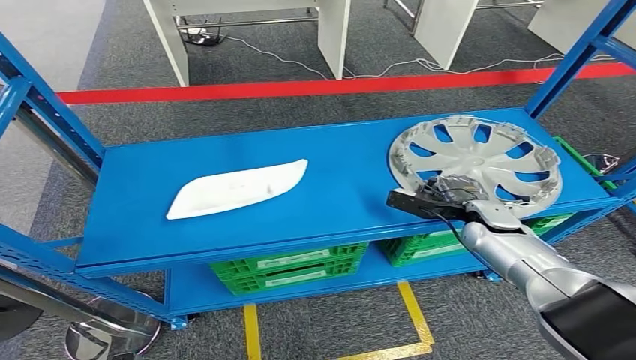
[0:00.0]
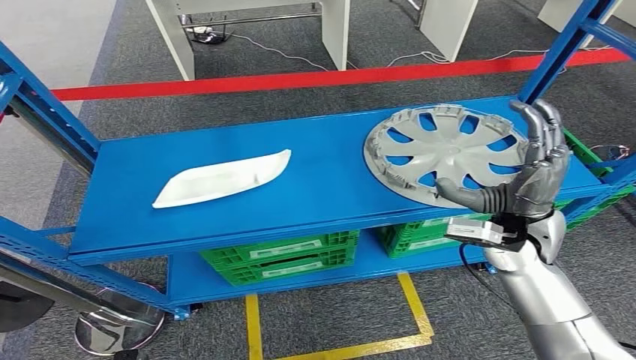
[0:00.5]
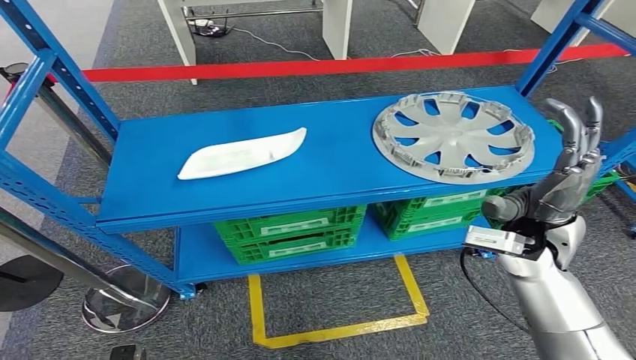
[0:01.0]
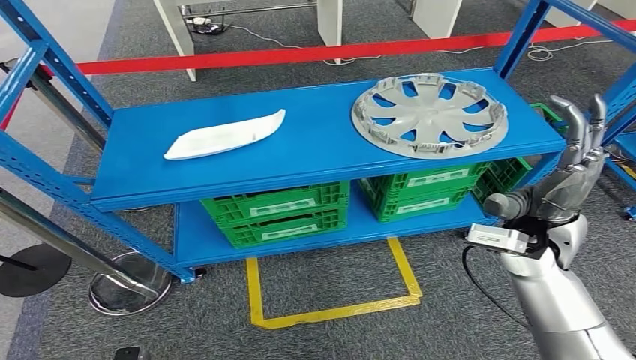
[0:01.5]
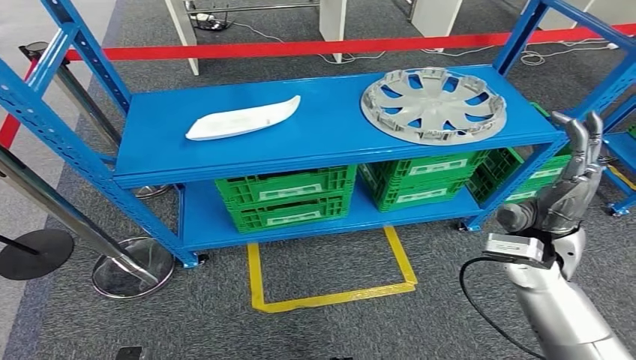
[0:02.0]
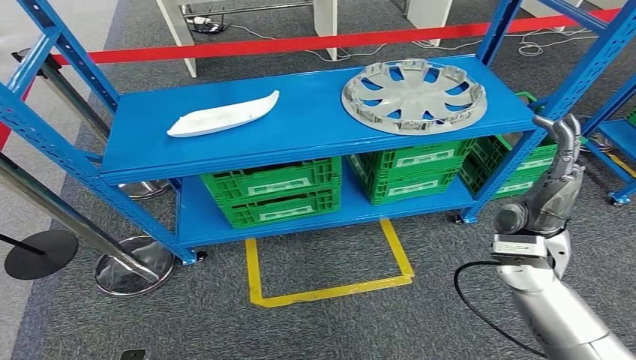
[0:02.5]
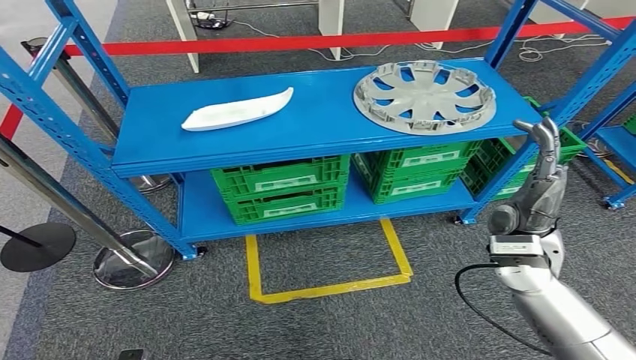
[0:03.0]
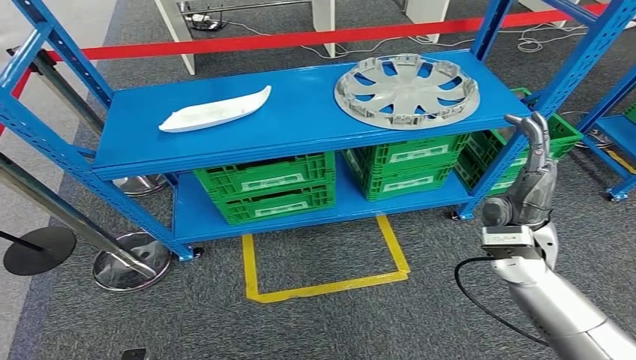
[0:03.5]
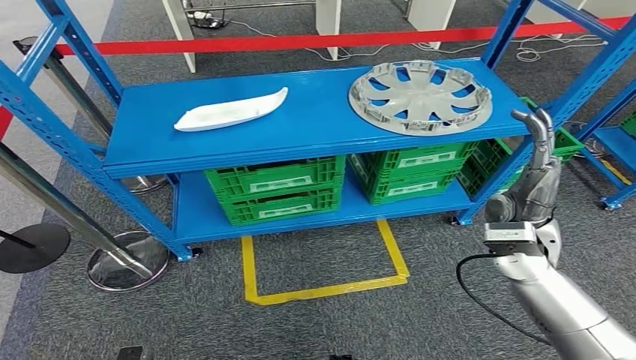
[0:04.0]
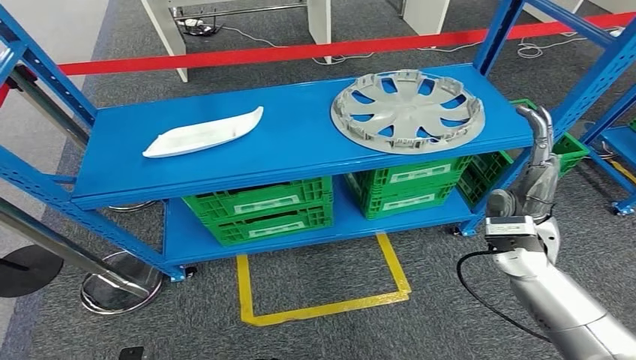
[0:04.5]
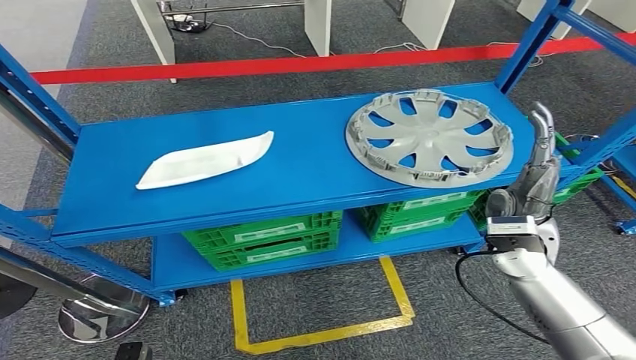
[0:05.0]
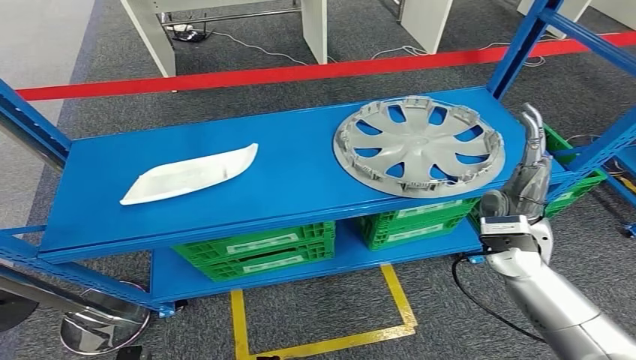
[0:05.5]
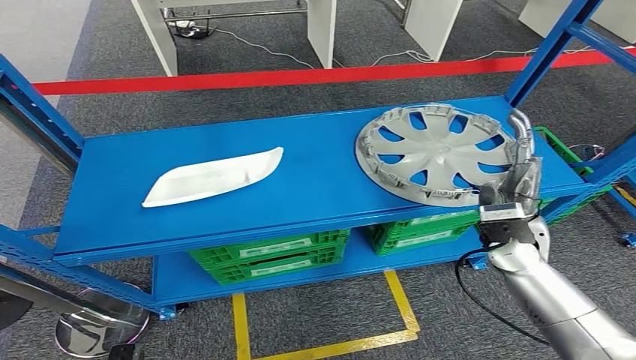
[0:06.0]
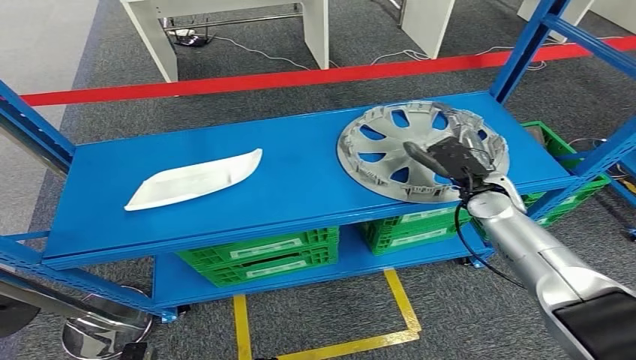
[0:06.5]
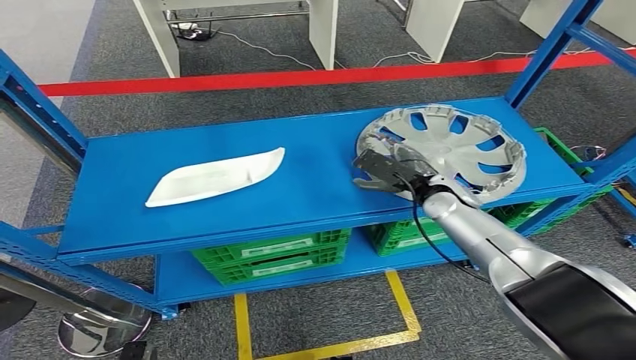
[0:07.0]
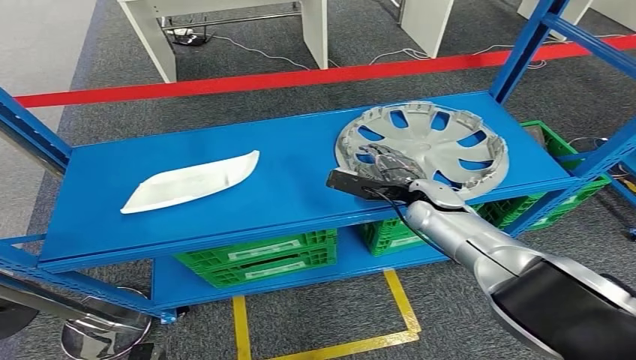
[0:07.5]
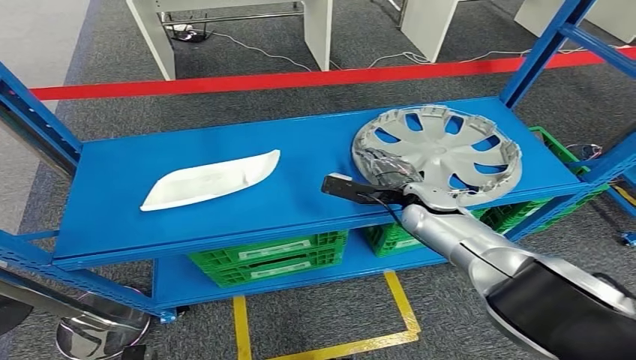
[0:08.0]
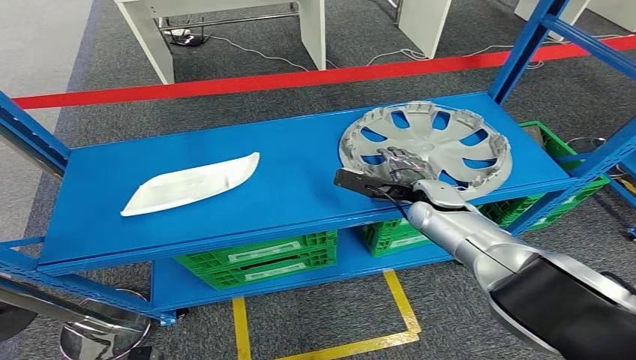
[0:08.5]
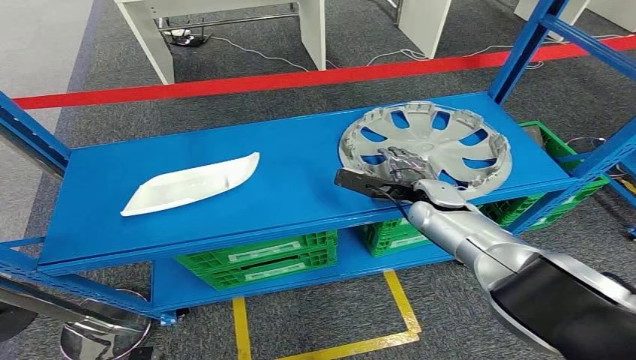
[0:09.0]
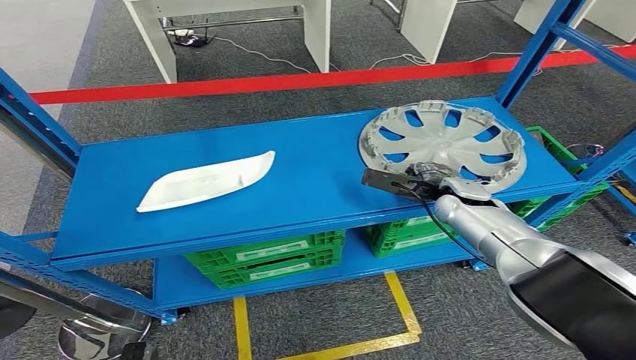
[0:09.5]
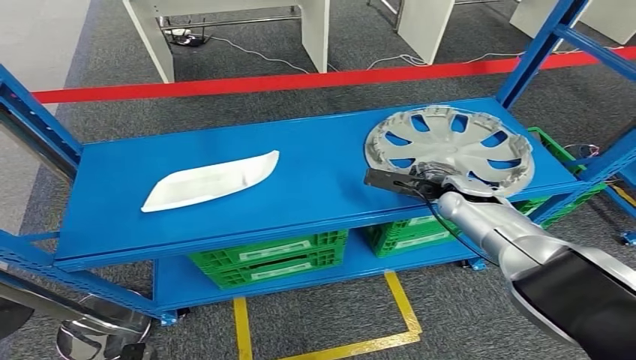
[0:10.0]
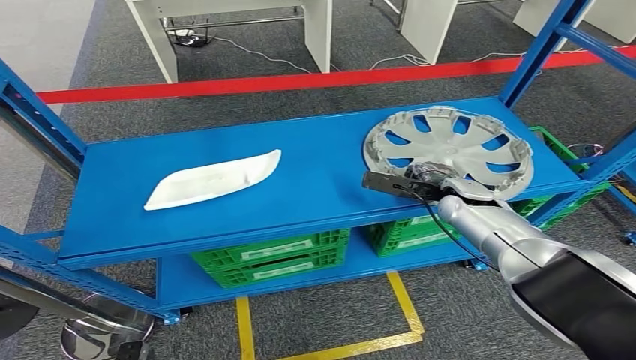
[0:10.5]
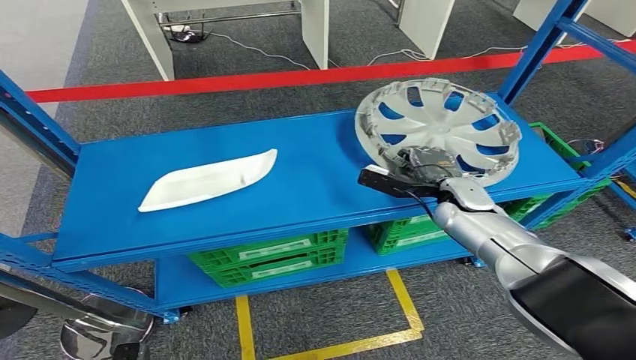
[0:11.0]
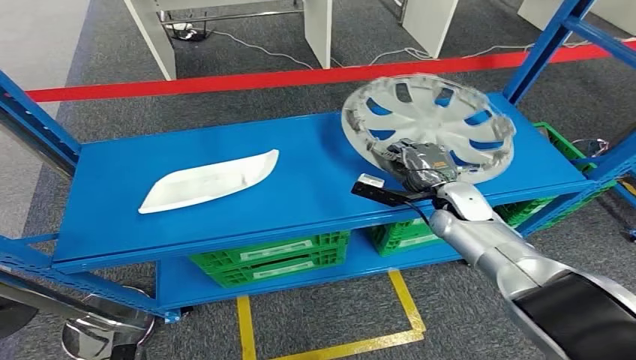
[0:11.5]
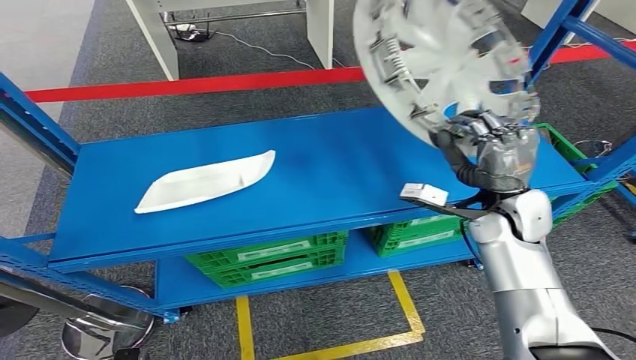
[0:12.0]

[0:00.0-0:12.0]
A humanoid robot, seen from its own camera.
0:08.0 to 0:10.0: The right hand moves to the right, some 5 cm.

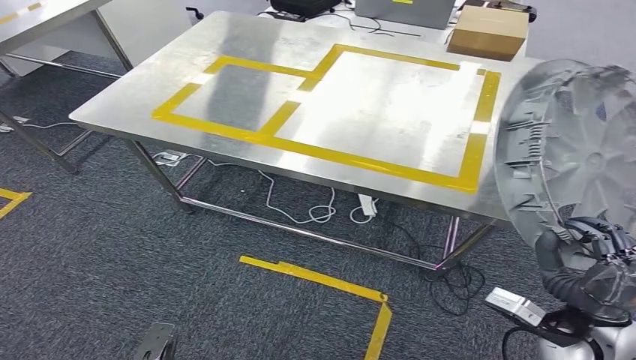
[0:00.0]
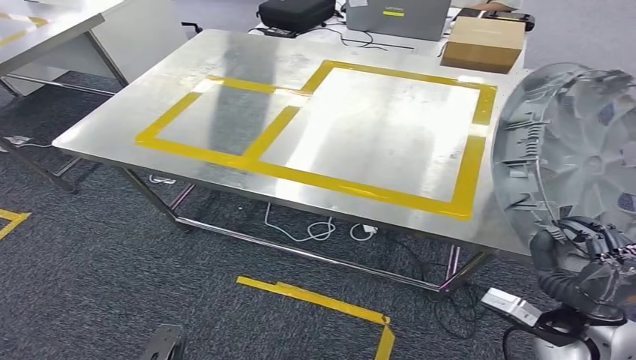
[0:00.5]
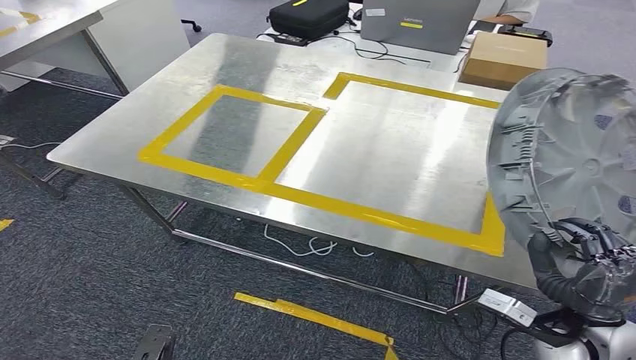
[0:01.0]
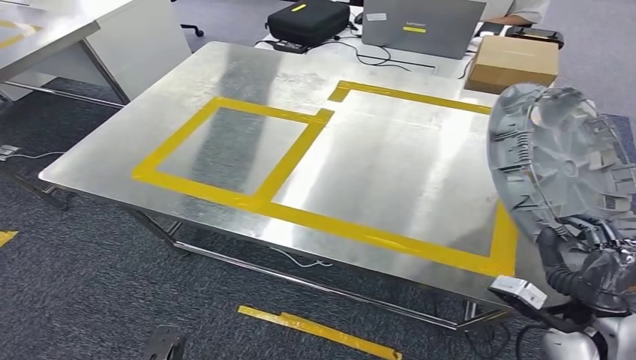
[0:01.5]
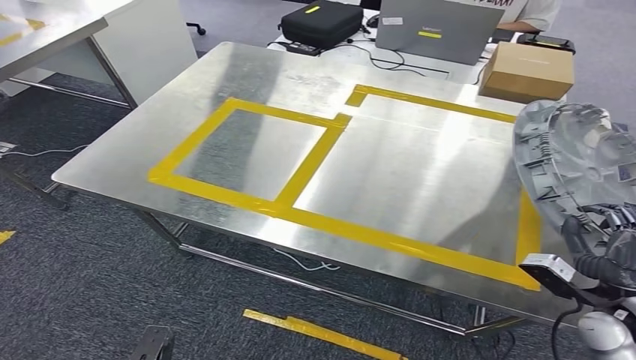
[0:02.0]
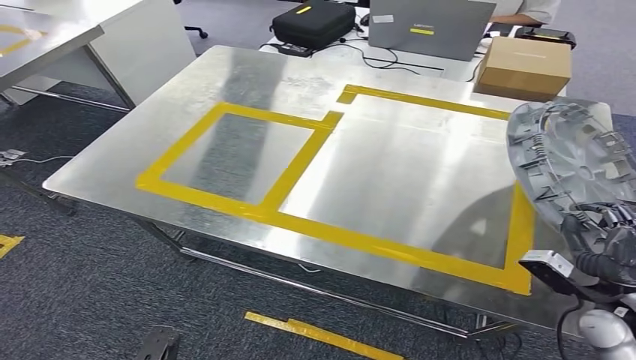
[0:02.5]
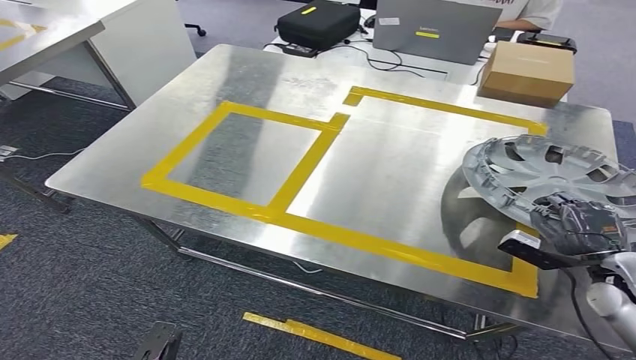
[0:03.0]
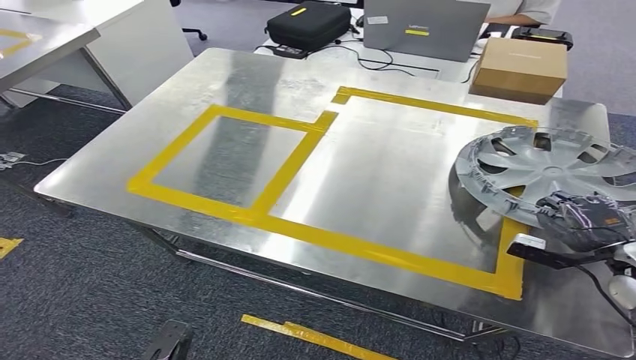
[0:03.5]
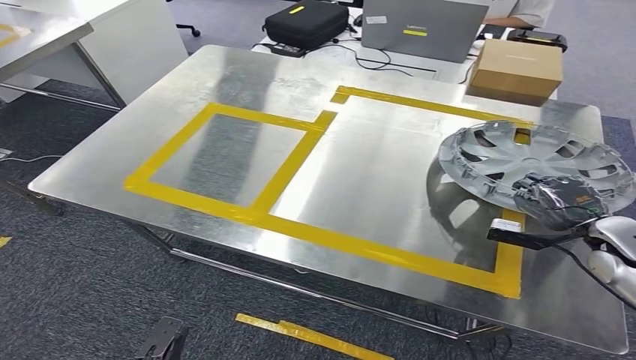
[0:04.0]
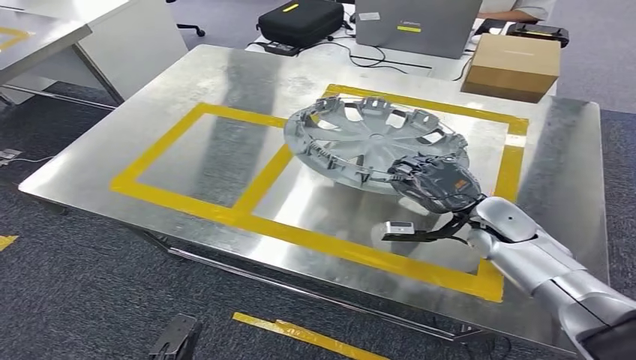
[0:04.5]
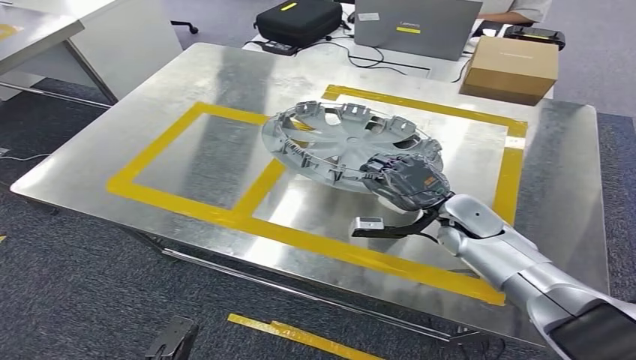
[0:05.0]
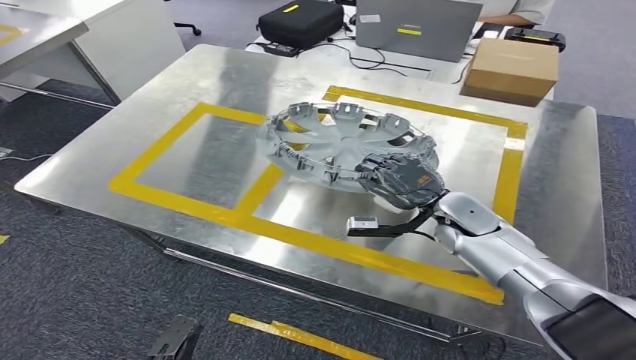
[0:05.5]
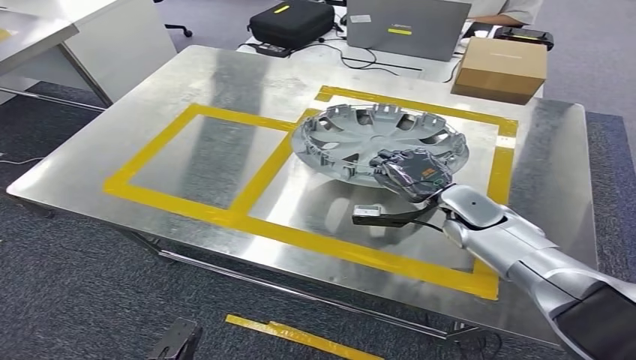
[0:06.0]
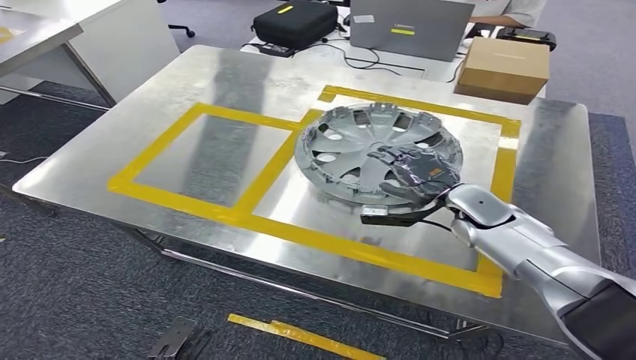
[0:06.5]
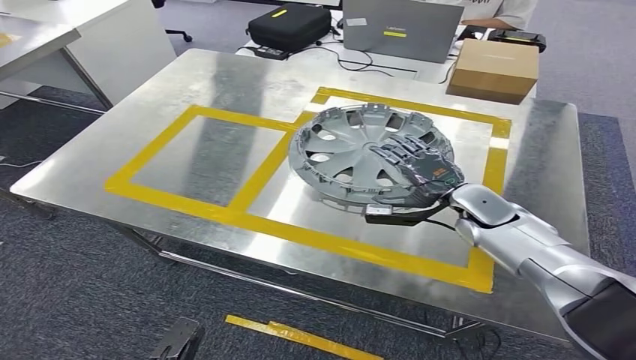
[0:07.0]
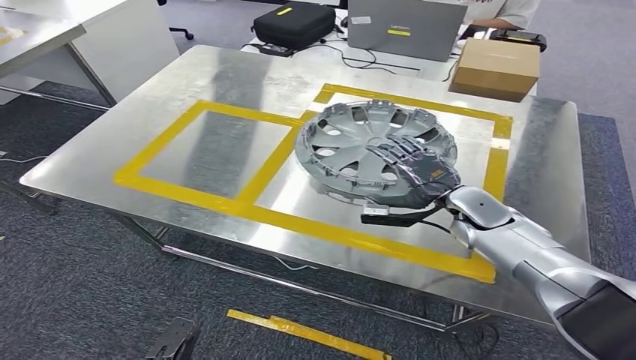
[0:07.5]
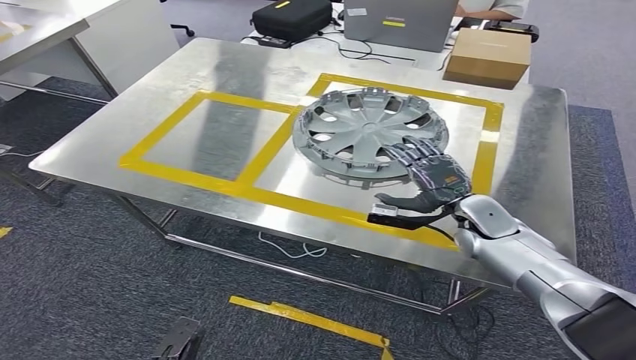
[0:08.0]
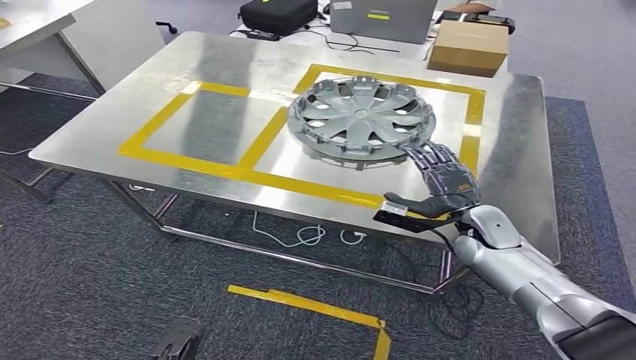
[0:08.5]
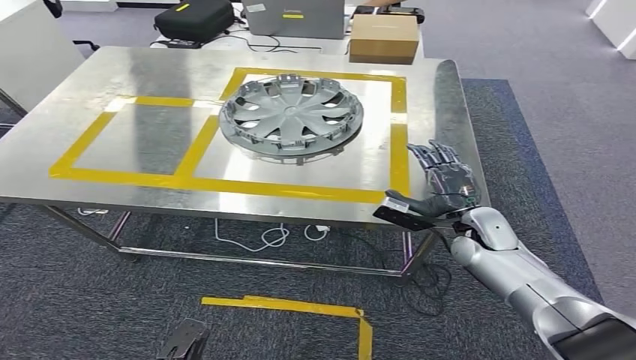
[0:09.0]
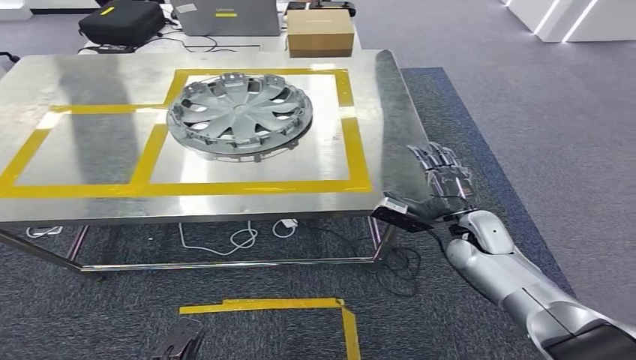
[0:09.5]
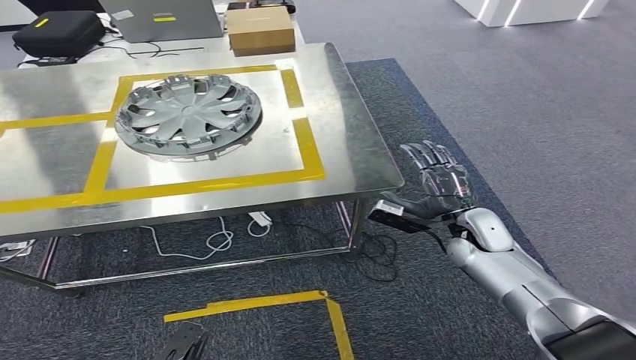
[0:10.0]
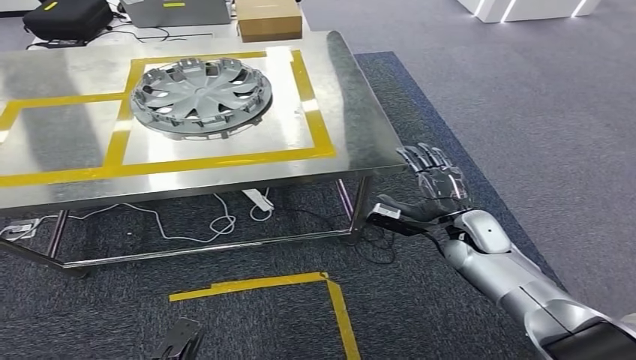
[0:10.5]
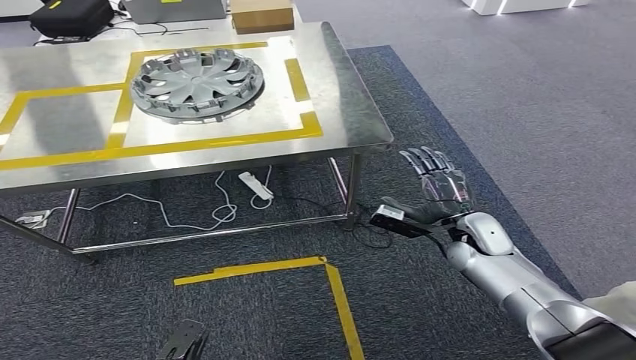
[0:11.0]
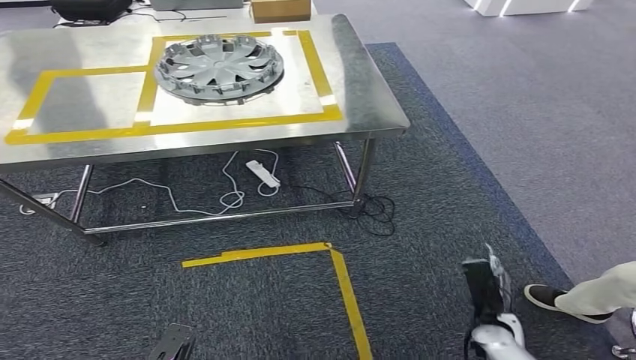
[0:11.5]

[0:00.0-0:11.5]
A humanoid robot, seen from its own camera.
Step, 0:01.5 to 0:09.5: Insert the small component into the corresponding slot on the workbench.
